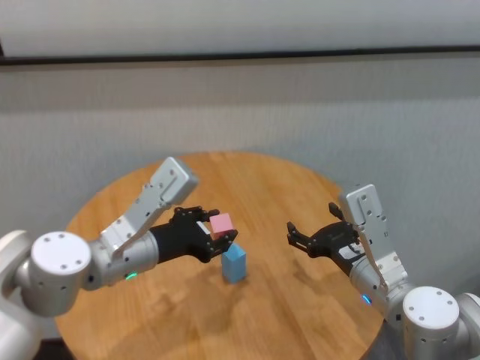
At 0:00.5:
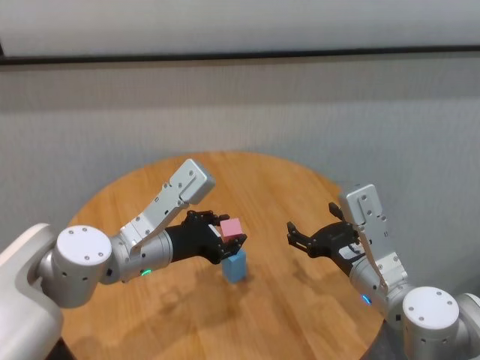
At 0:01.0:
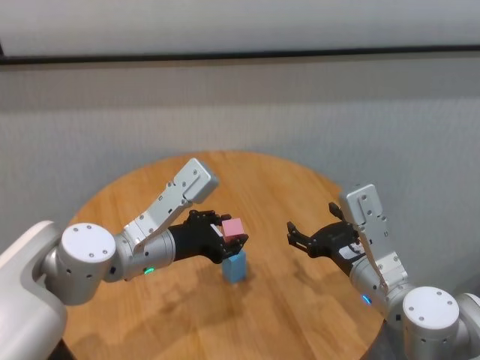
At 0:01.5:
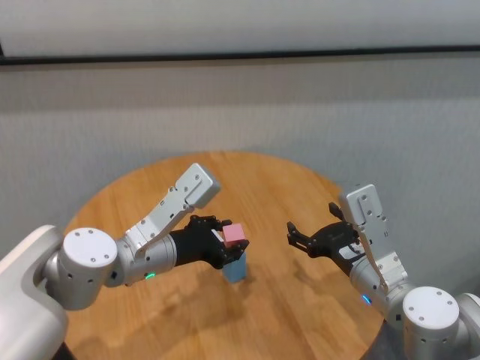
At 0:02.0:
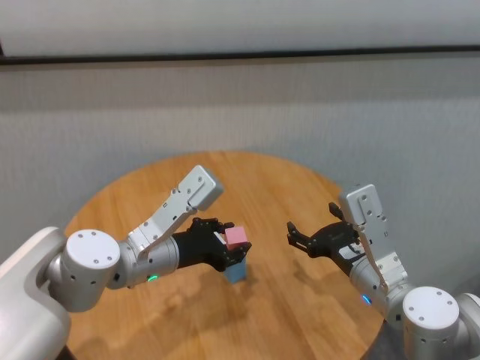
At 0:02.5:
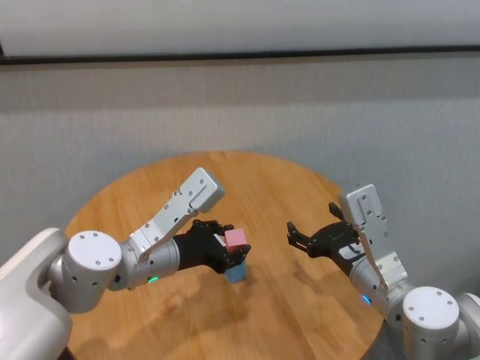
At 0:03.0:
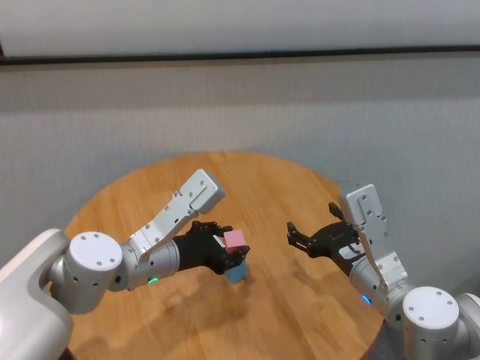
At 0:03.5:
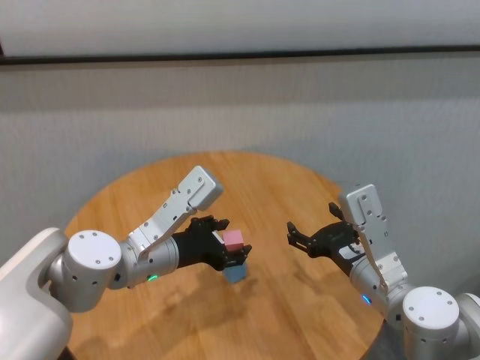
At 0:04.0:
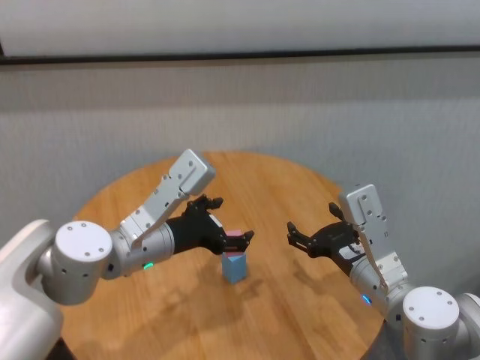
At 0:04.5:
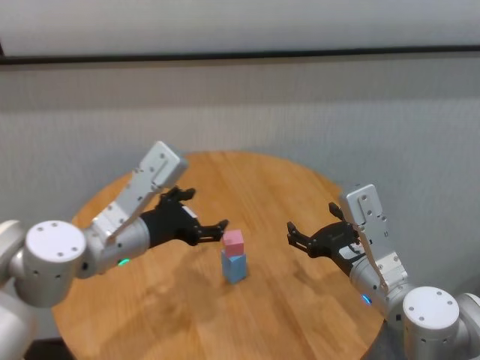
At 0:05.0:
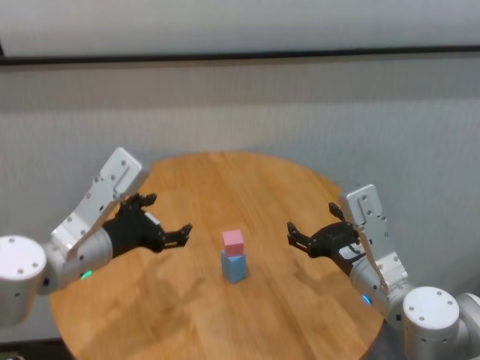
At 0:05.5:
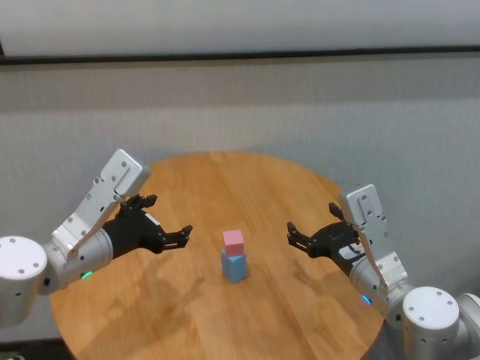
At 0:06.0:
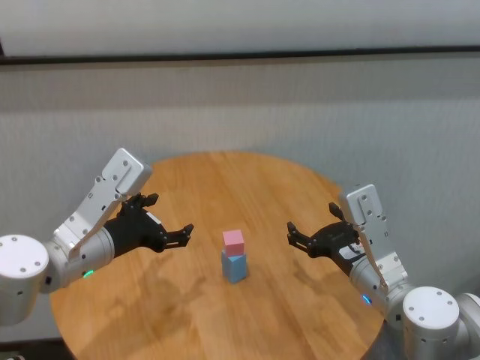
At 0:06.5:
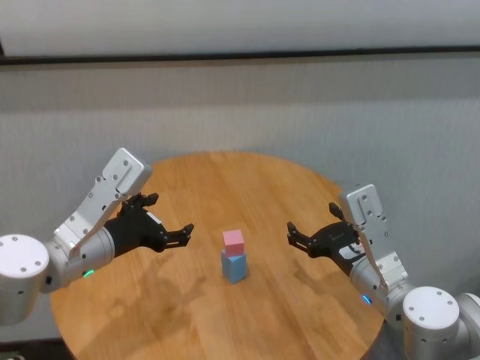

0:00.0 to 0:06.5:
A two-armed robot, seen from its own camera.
Task of the whole recording: stack building blocks on the table.
Step, 0:00.0 to 0:03.5: Place the pink building block on the blue building blocks with left gripper.

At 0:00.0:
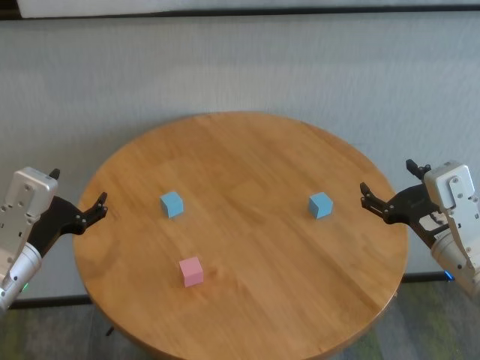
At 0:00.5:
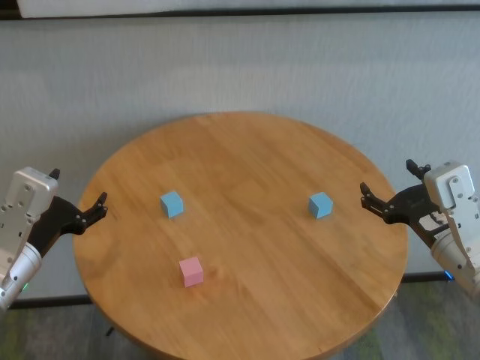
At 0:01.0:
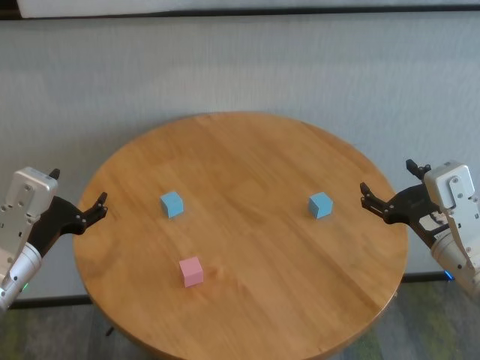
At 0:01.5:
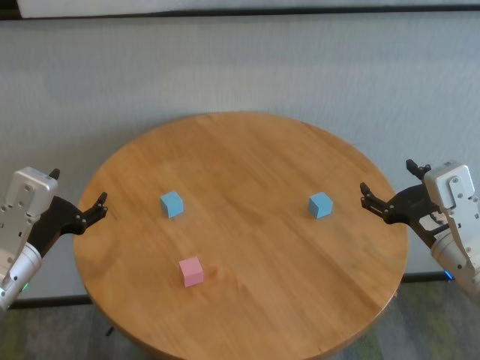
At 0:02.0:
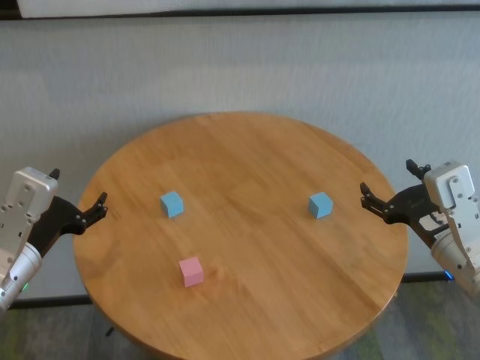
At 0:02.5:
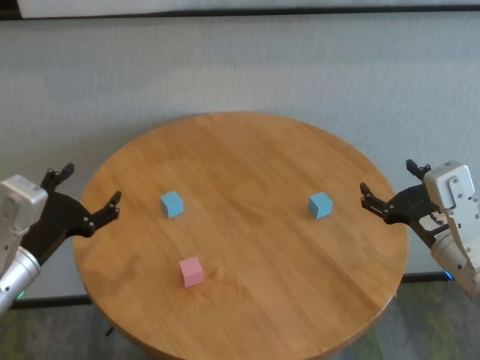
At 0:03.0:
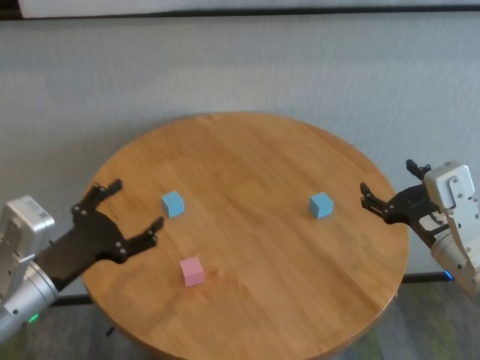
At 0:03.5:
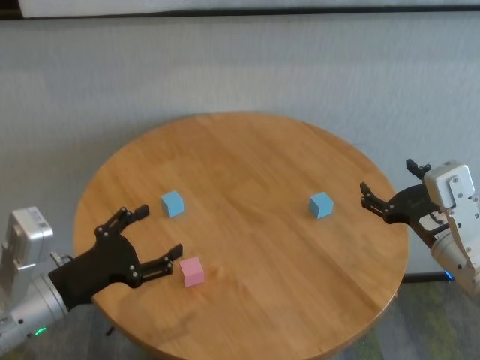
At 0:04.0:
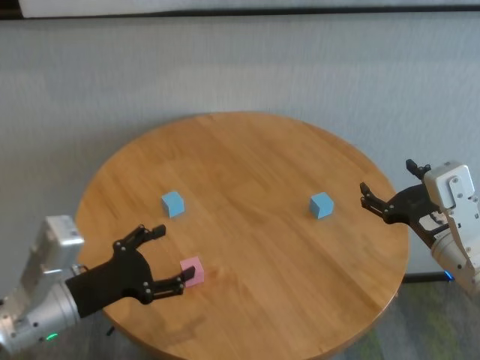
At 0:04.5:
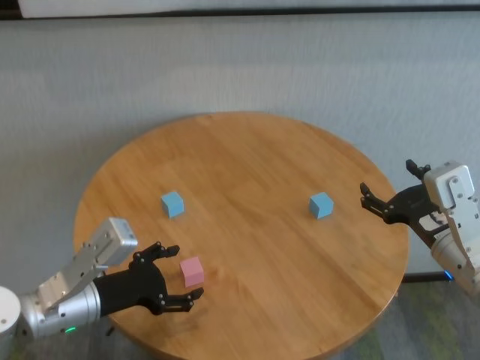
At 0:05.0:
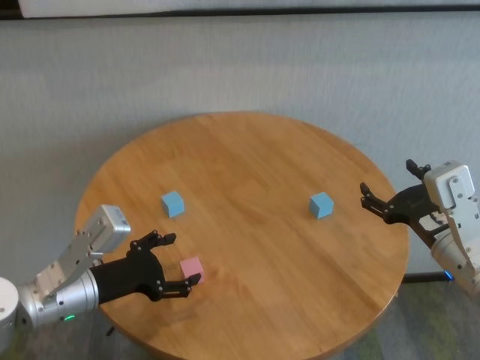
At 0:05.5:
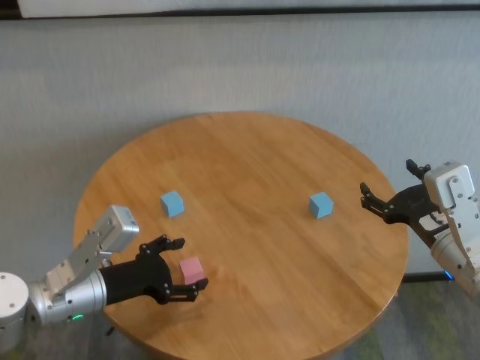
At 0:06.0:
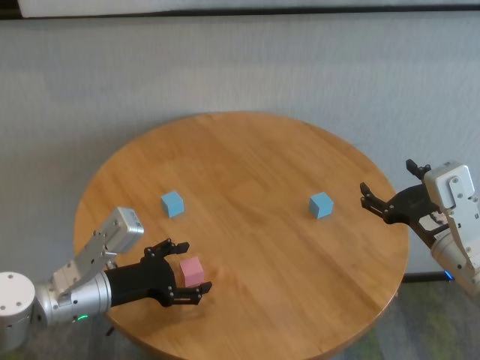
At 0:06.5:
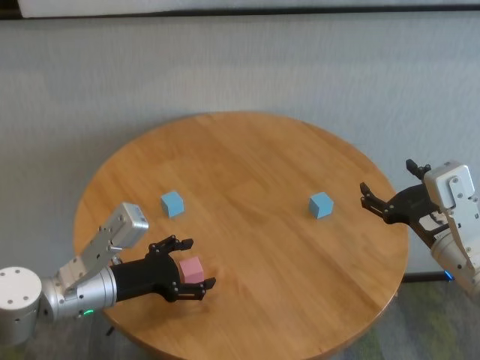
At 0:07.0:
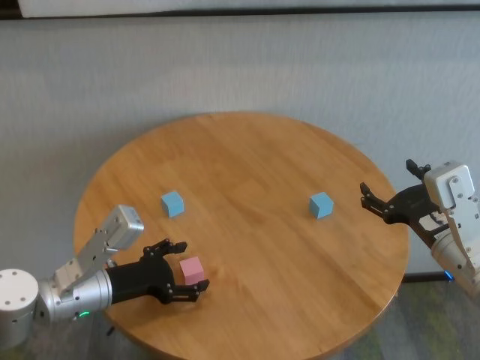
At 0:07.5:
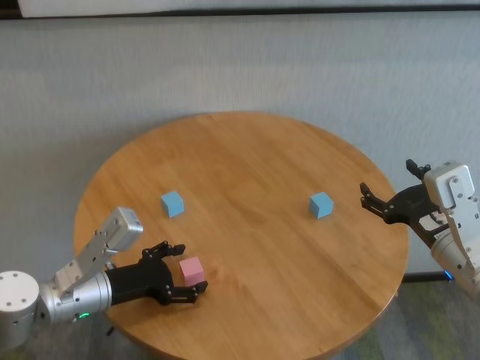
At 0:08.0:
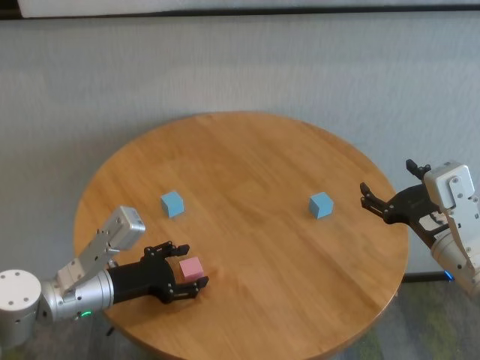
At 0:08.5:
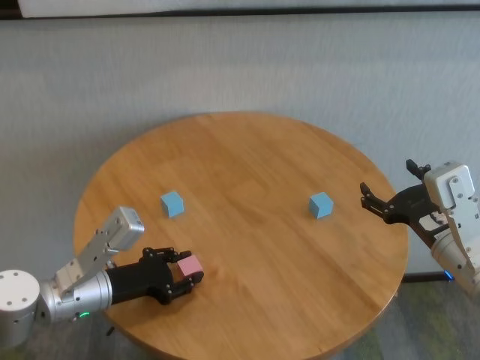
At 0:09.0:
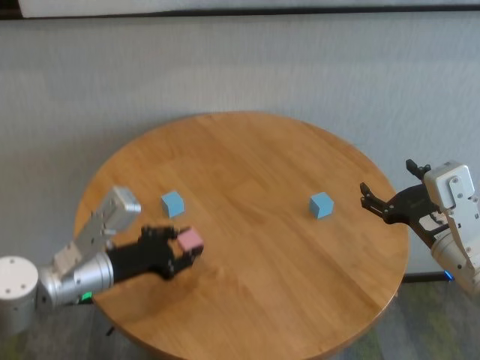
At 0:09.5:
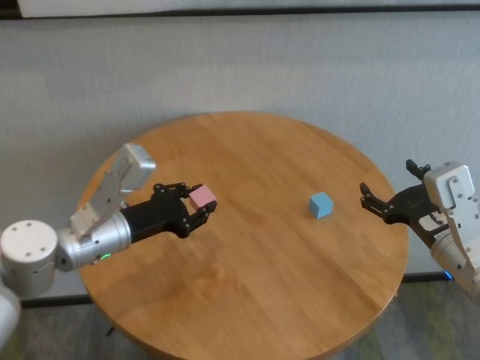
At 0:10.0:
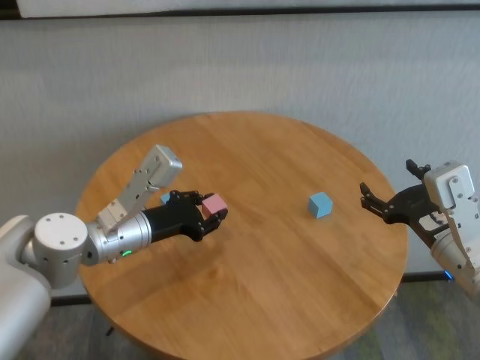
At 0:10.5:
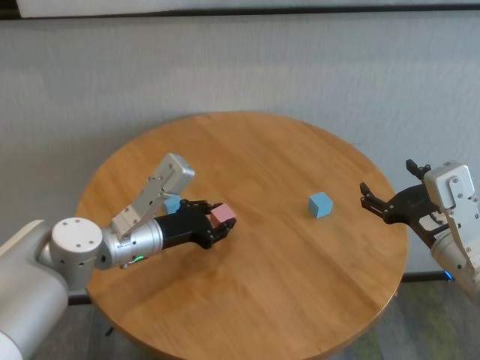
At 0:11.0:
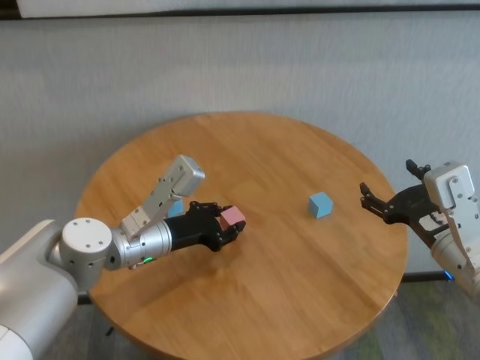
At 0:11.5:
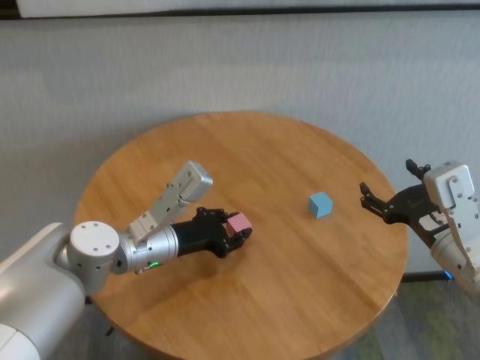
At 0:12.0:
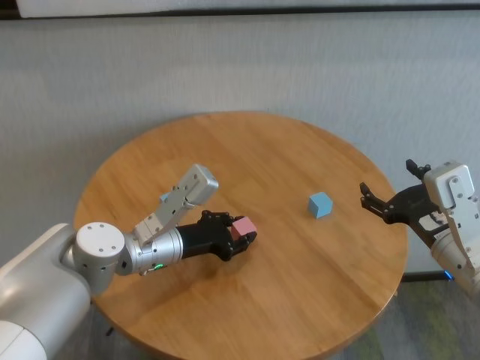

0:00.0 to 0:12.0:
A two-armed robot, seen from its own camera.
Task of the whole recording: stack building blocks on the table.
Step, 0:00.0 to 0:08.5: Grasp the pink building block with left gripper.

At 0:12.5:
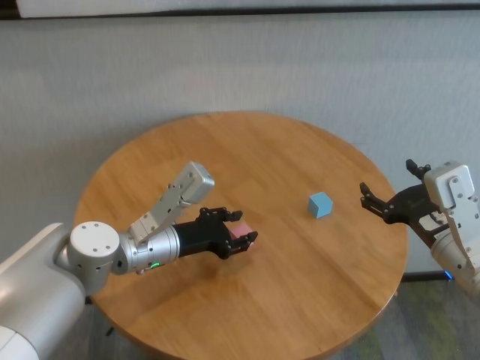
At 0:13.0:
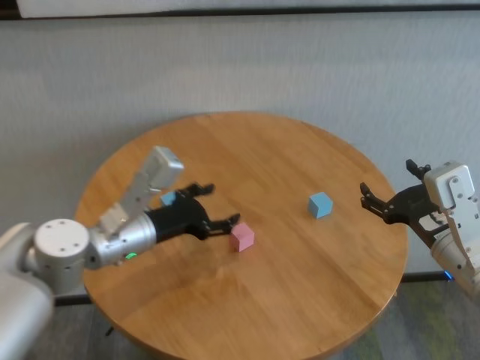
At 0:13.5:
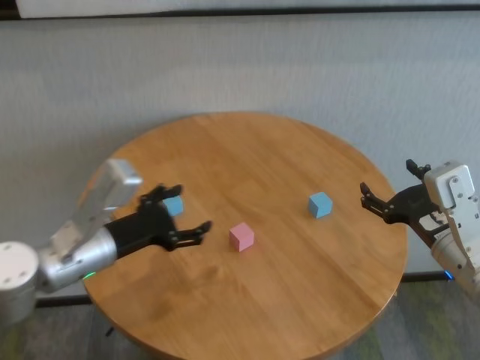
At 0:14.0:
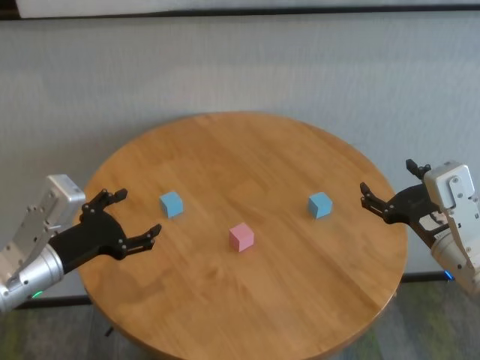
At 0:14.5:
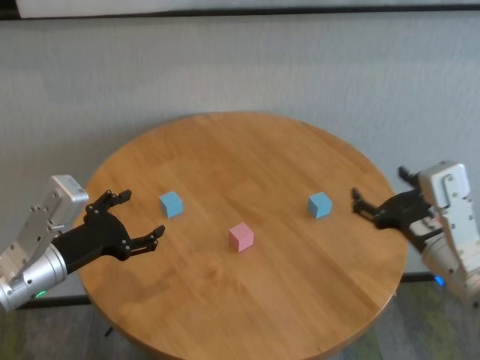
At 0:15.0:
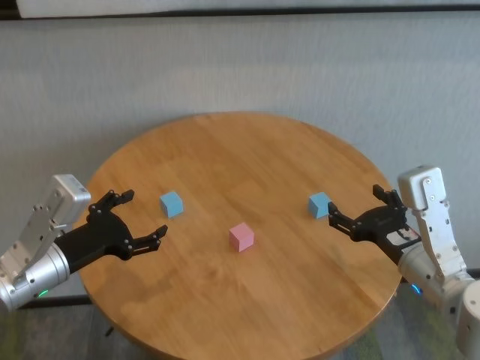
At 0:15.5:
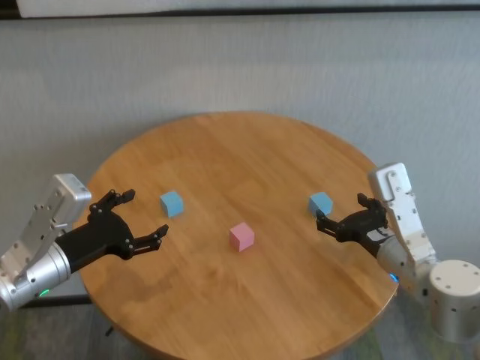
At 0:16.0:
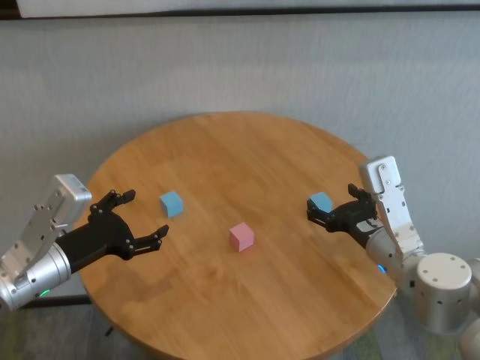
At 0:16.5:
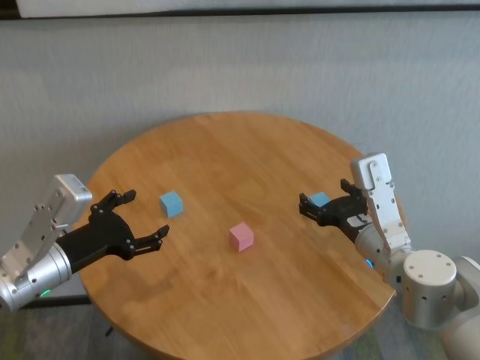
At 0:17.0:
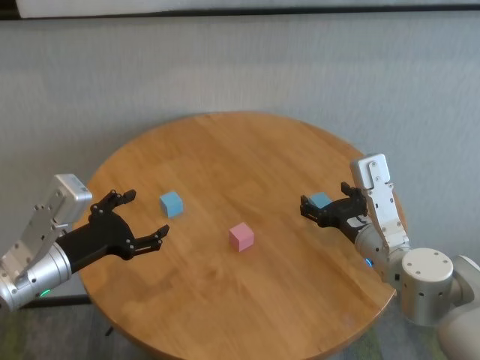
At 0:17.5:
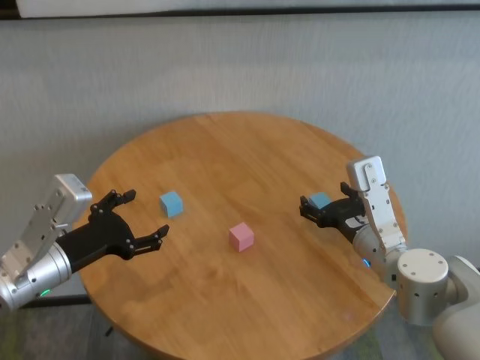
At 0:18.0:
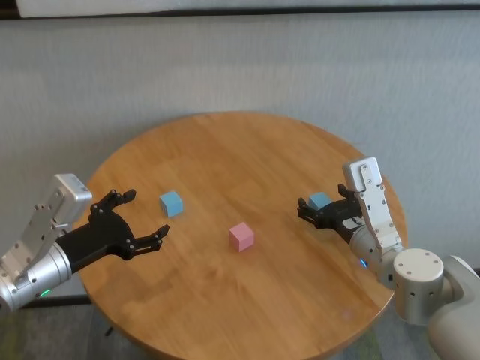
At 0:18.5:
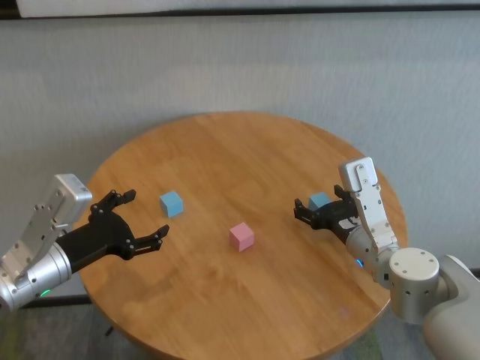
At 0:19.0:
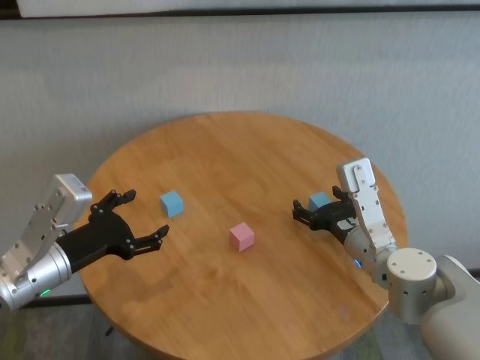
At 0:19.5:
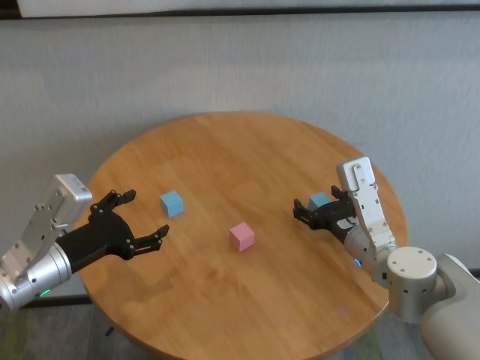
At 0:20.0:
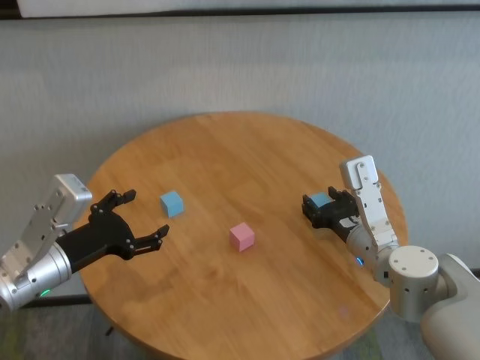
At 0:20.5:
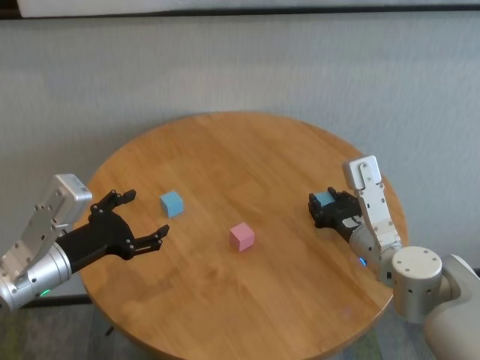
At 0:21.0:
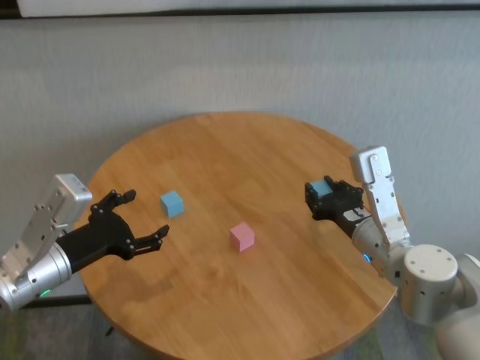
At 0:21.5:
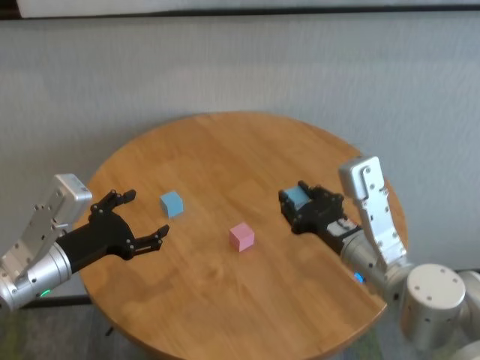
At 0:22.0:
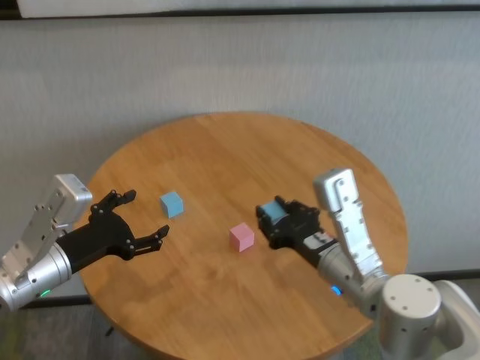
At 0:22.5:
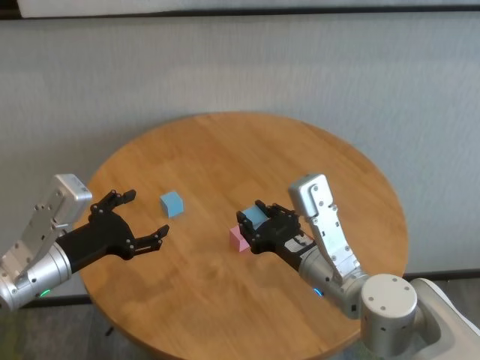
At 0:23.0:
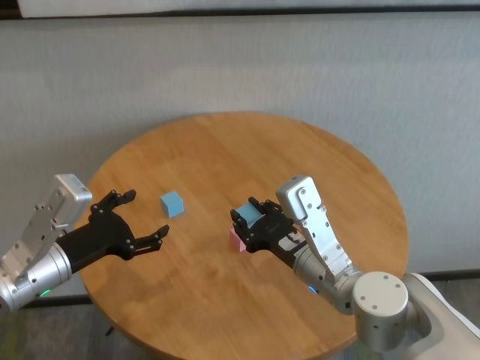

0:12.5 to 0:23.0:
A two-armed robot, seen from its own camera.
Task of the whole recording: stack building blocks on the table.
Step, 0:13.0 to 0:20.0: Grasp the blue building block with right gripper.
